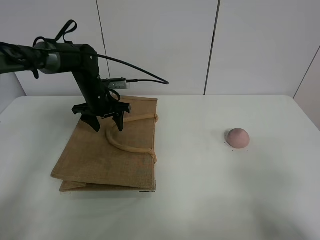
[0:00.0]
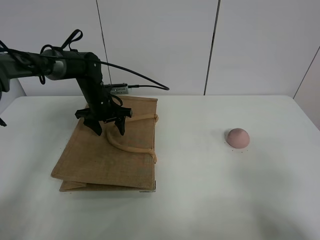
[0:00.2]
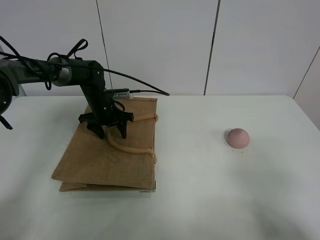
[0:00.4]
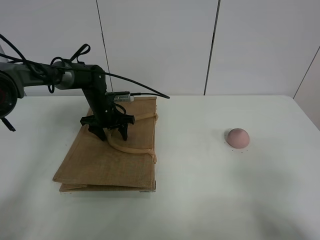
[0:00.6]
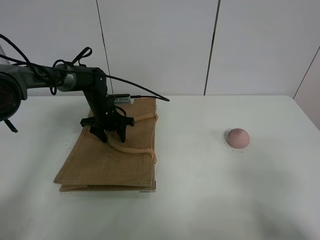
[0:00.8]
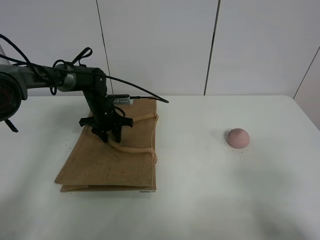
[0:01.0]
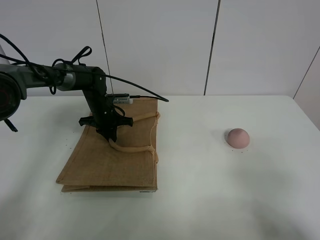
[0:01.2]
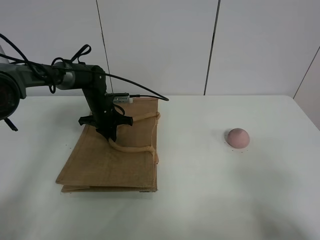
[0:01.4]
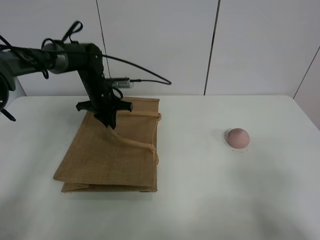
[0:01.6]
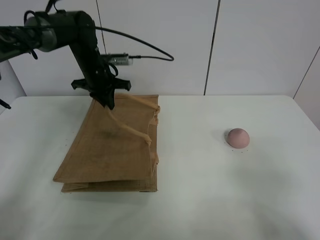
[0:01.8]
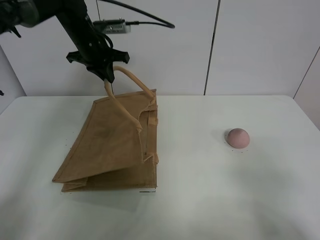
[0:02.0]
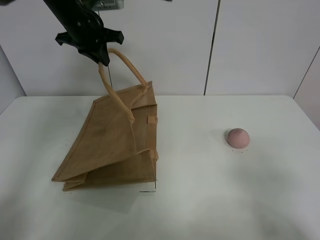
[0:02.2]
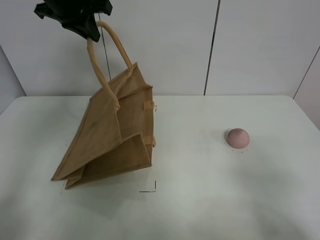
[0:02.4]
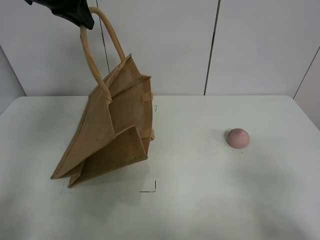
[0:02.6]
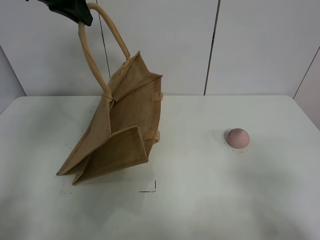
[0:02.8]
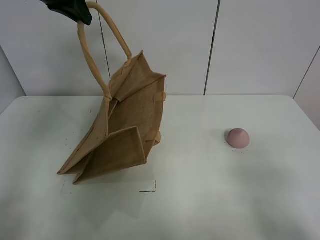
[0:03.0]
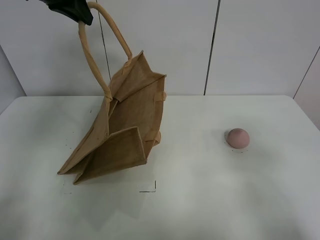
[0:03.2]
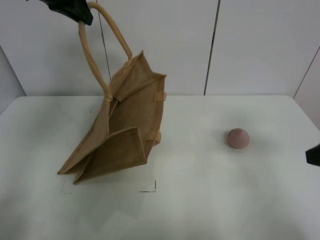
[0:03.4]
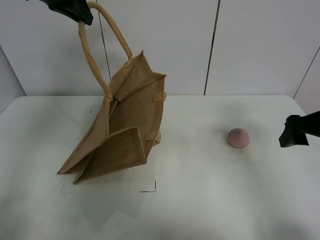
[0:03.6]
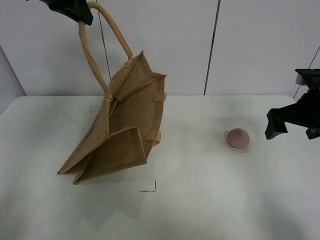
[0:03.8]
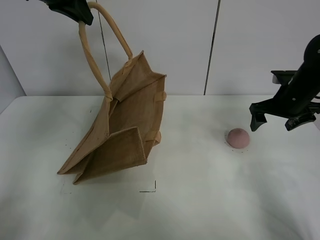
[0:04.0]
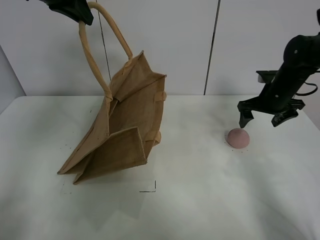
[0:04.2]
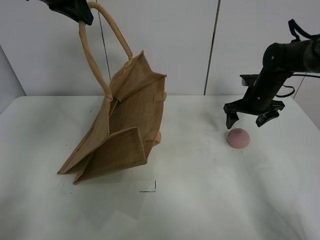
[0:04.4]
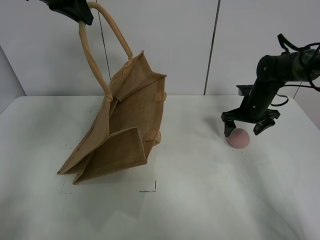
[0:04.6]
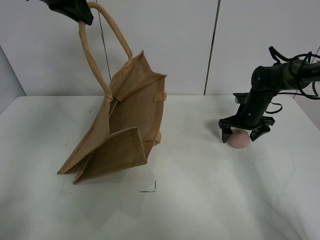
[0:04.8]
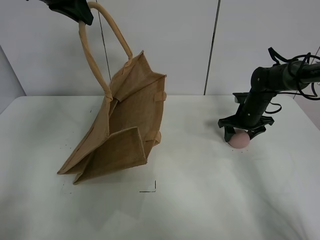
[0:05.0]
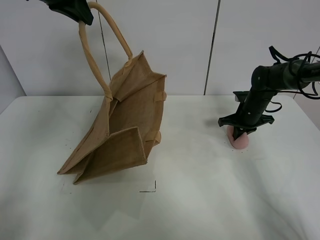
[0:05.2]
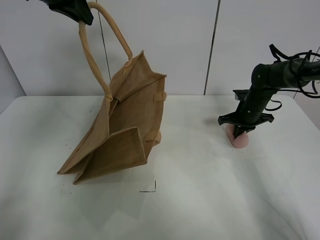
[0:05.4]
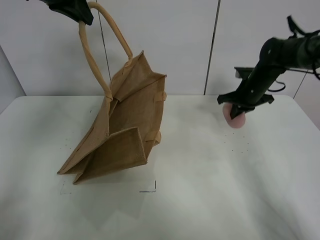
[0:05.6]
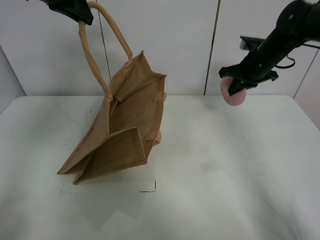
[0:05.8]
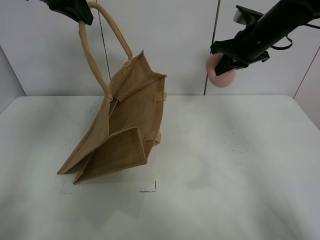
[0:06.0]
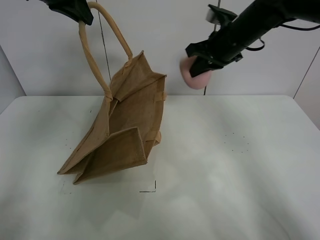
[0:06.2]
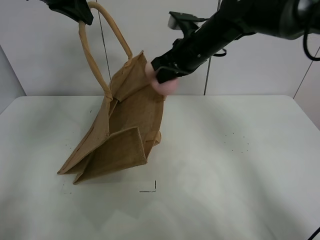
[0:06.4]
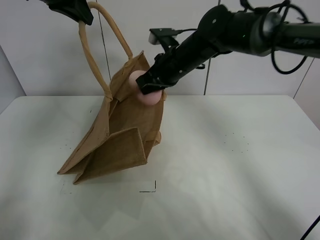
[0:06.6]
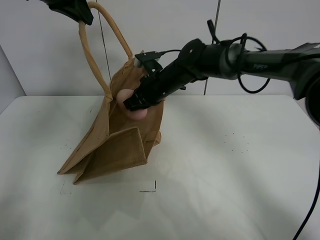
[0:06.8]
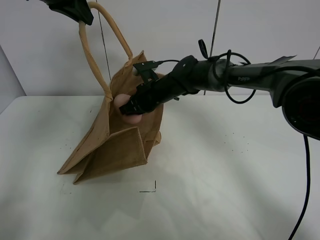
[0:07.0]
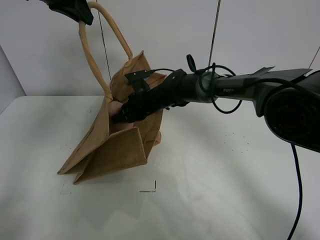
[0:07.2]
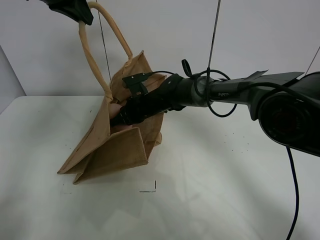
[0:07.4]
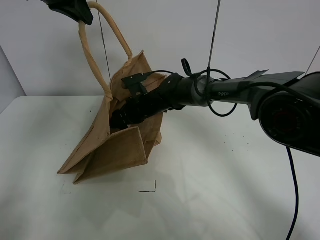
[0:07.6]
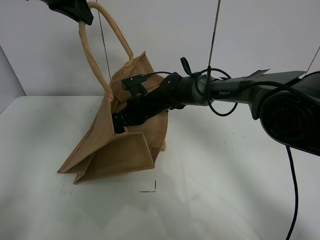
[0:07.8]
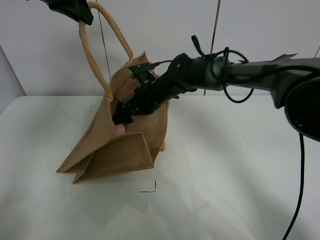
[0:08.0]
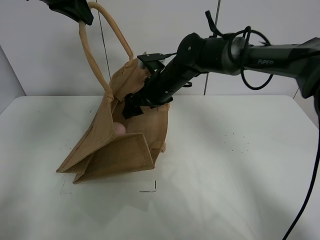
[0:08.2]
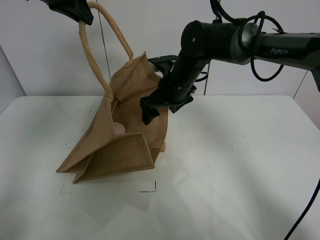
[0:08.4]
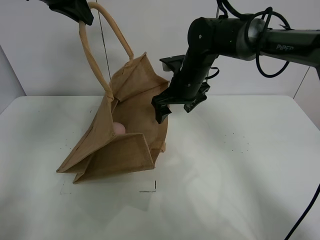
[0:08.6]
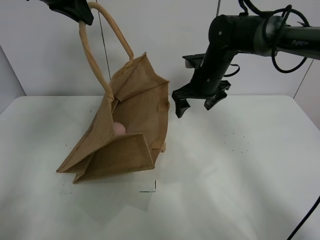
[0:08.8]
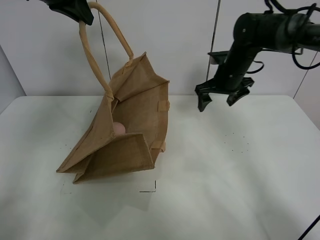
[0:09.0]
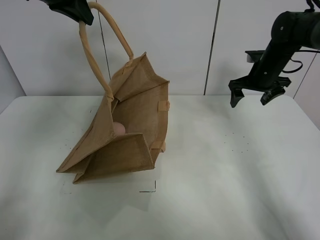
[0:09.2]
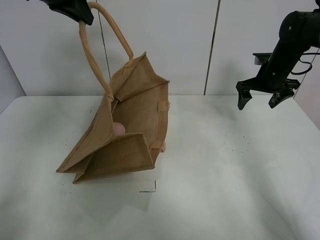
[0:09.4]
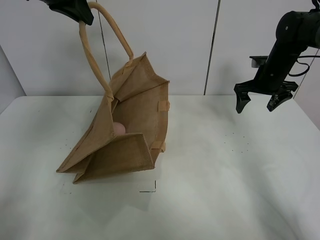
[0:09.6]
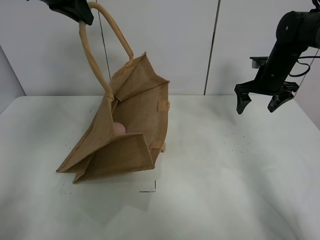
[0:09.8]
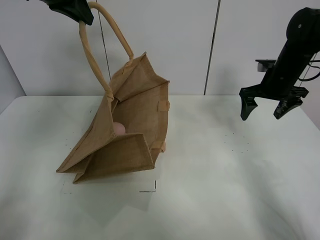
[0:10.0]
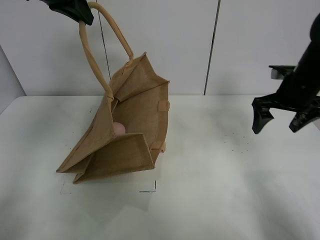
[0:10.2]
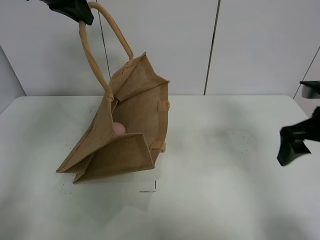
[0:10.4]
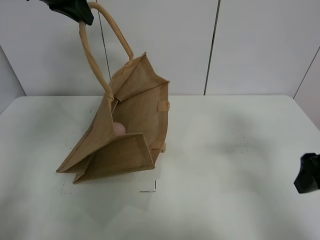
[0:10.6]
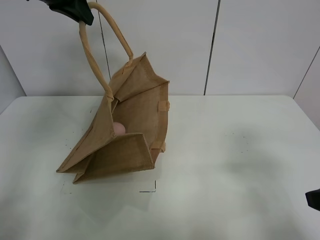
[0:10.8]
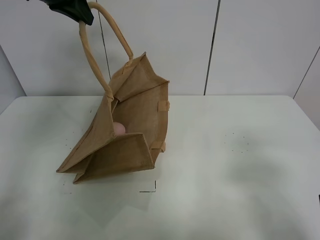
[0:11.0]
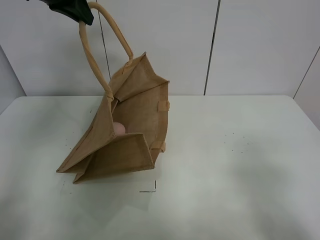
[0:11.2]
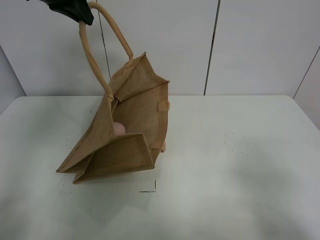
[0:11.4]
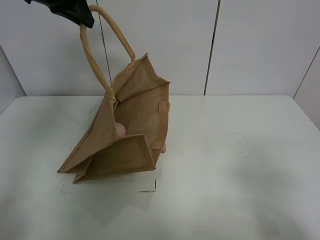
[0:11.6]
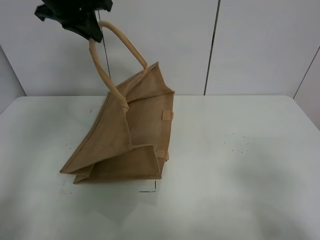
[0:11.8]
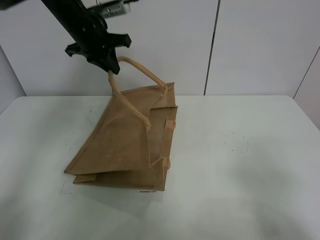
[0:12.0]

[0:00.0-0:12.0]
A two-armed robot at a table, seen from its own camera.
Task of the whole recording: open the brown linen bag and put the peach in the bag.
Step, 0:00.0 to 0:02.4: Lift the handbag with left gripper.
Step, 0:02.6 to 0:05.2: Grasp the peach with right gripper.
Step, 0:05.4 to 0:08.6: Place the peach in the handbag with right gripper.
0:00.0 to 0:01.6: The left gripper reaches about 5 cm downward, then returns, and closes up.
0:01.6 to 0:03.0: The left gripper shifts approximately 25 cm upward.
0:03.0 to 0:04.4: The right gripper goes approximately 40 cm forward.
0:04.4 to 0:06.0: The right gripper goes some 15 cm upward and to the left, and closes its fingers.
0:06.0 to 0:07.6: The right gripper moves to the left and downward, some 30 cm, and opens its fingers.
0:07.6 to 0:09.0: The right gripper goes approximately 25 cm to the right and upward.
0:09.0 to 0:10.4: The right gripper heads backward and to the right, covering roughly 25 cm.
0:10.4 to 0:12.0: The left gripper travels downward and forward by some 15 cm, while the right gripper moves backward, about 20 cm.

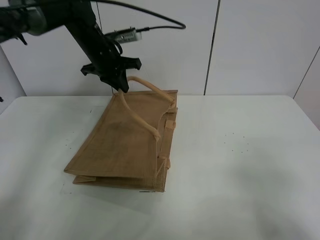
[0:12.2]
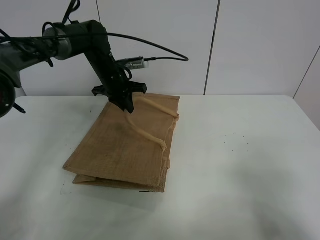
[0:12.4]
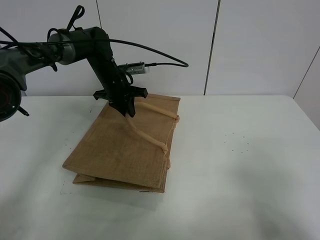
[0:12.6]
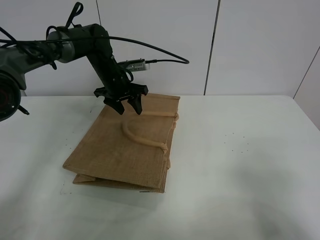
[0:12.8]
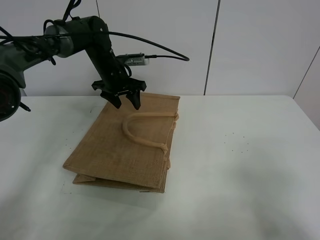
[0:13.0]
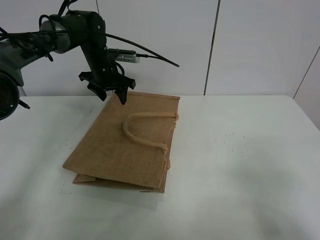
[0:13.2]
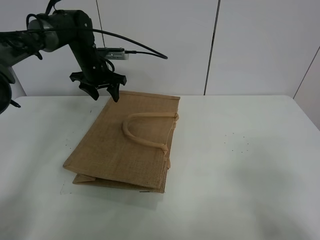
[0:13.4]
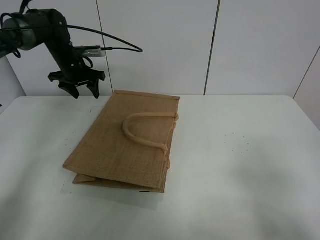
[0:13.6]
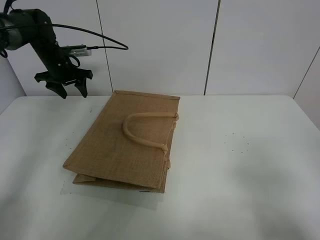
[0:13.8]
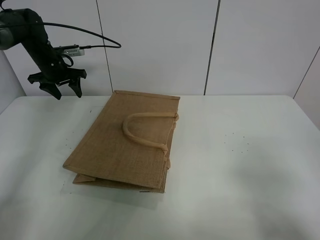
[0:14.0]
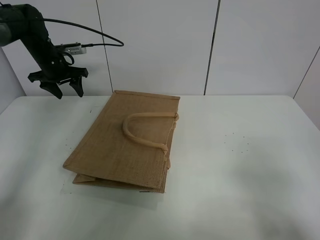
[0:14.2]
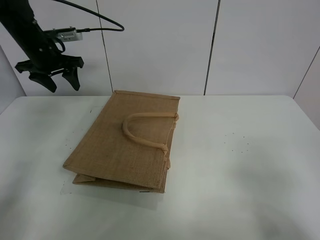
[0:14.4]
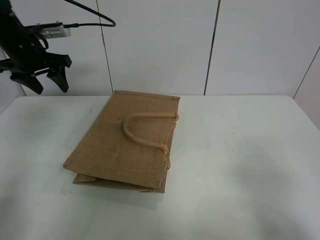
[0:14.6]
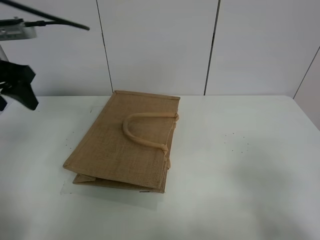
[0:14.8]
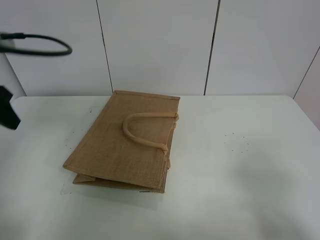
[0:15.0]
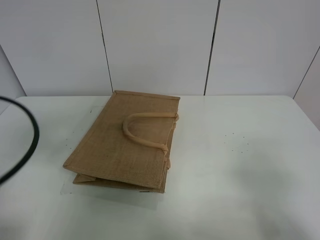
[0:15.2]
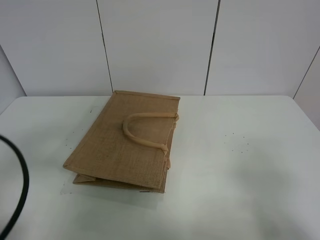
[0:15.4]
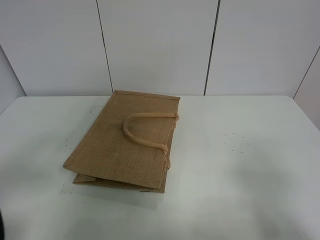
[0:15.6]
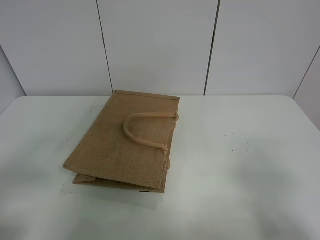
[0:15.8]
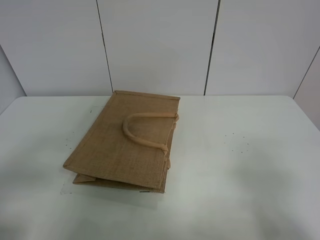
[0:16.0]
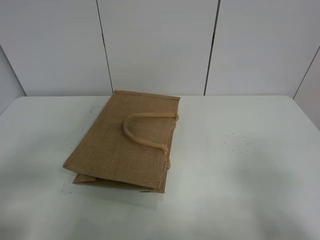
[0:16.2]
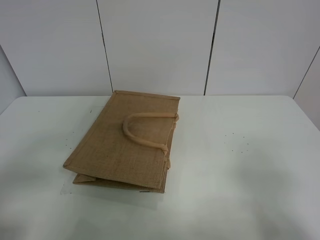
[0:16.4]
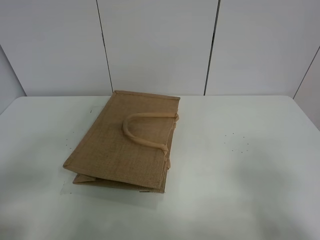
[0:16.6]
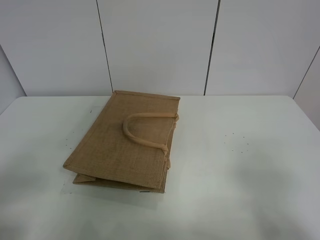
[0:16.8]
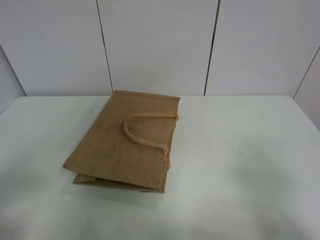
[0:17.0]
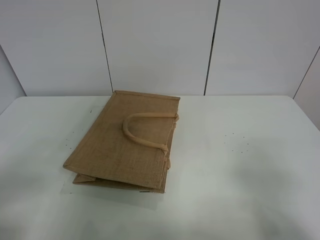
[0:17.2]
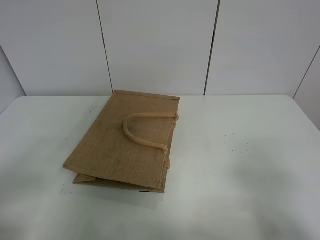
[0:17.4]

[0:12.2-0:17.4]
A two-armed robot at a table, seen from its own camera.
Task of the whole recording: open the brown linen bag and put the peach in the bag.
0:12.2 to 0:14.0: The left gripper shifts about 15 cm to the left, and opens.
0:14.0 to 0:15.6: The left gripper moves backward, approximately 50 cm.
